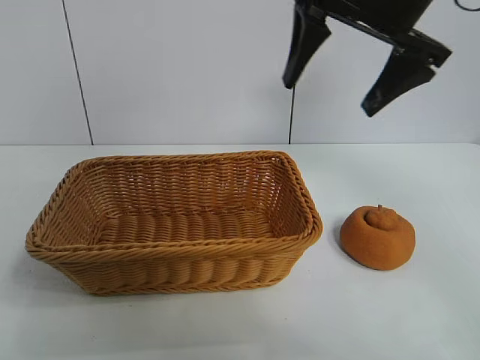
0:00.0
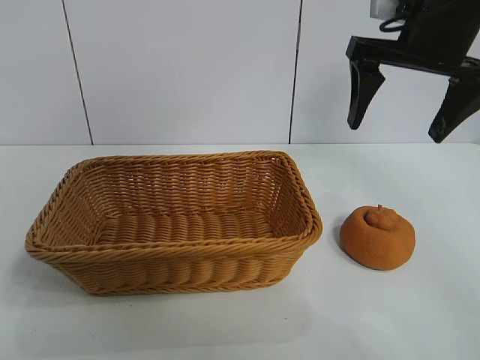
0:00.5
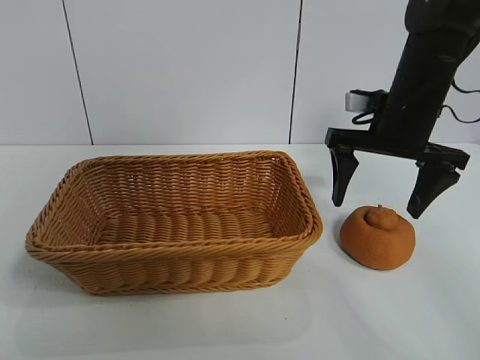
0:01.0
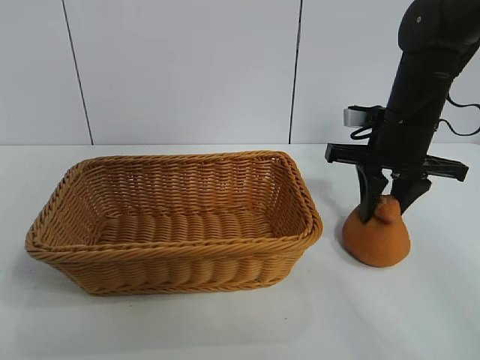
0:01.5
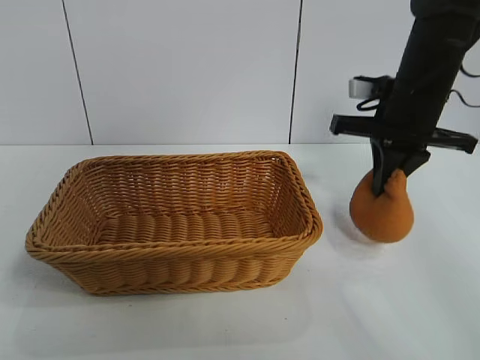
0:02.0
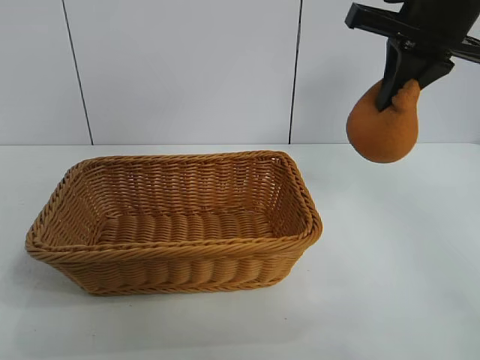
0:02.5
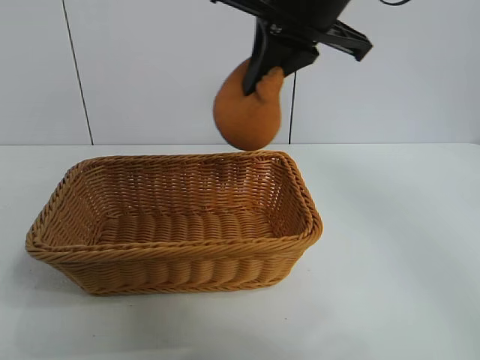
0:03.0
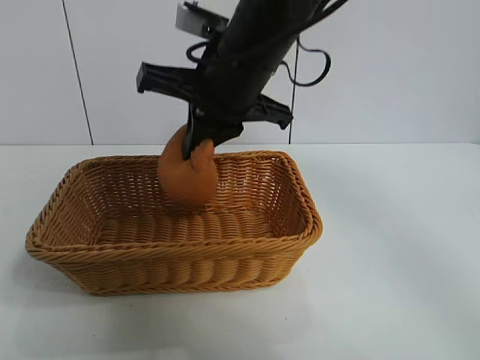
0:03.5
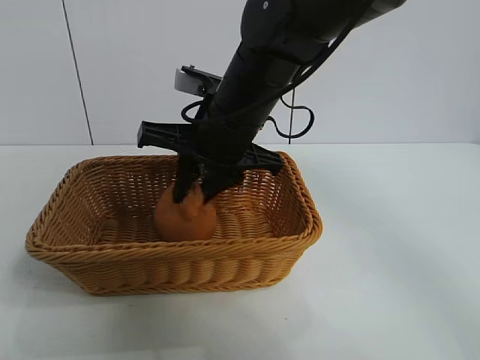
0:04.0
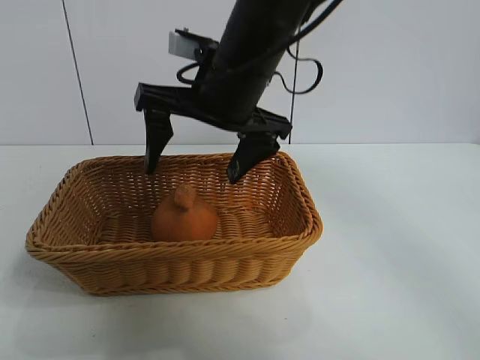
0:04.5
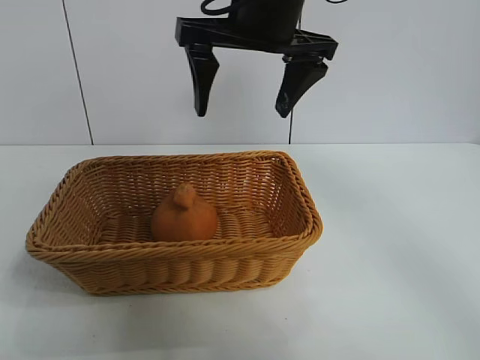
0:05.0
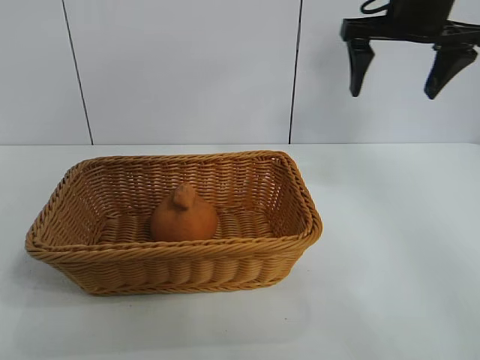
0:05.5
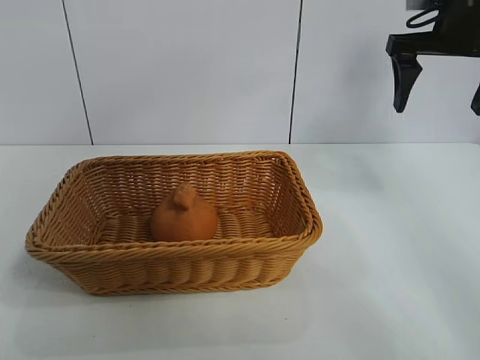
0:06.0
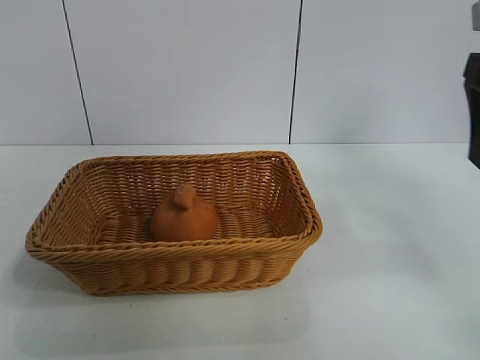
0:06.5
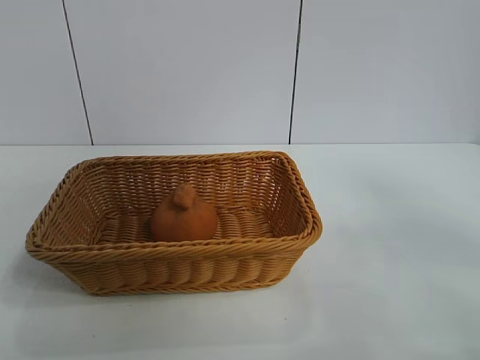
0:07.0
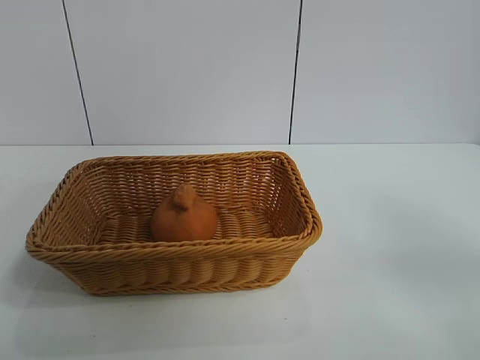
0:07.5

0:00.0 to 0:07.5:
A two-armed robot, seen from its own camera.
Task of the whole recording: pick up the orange and put it into the basket.
Step, 0:02.0 to 0:04.0: Place the orange in the basket with right gripper.

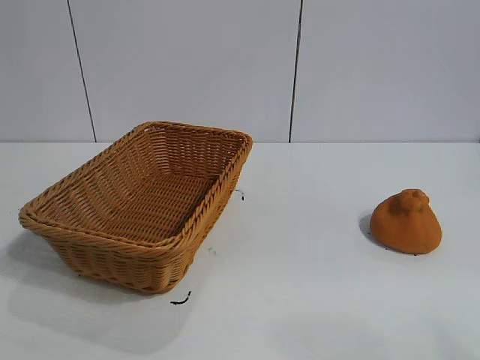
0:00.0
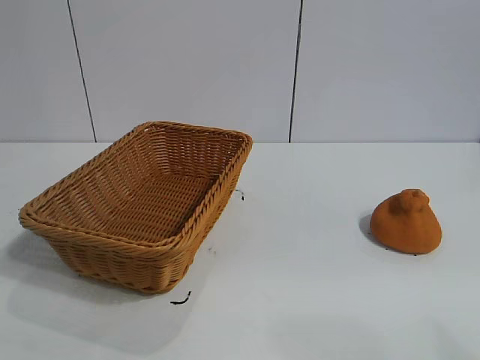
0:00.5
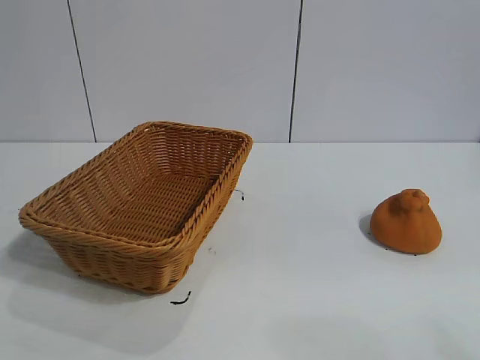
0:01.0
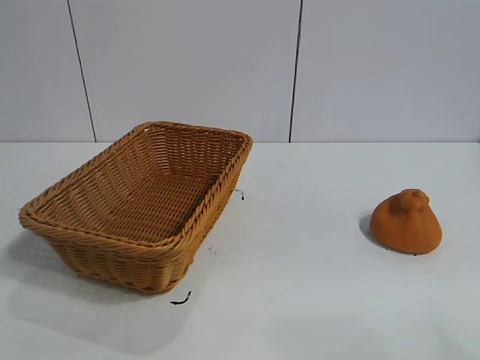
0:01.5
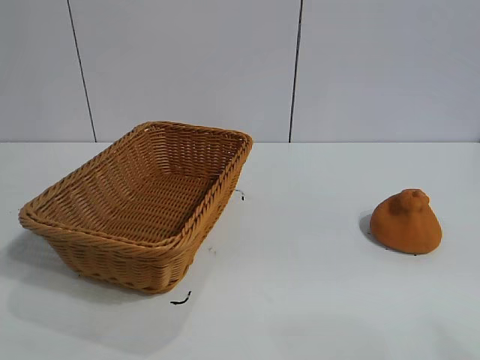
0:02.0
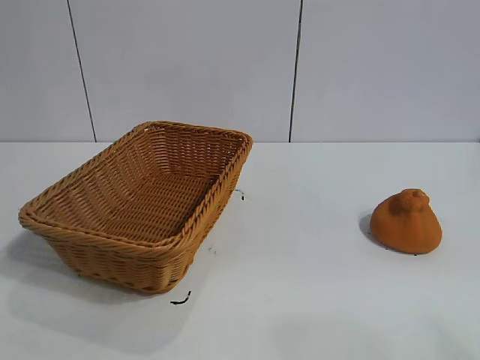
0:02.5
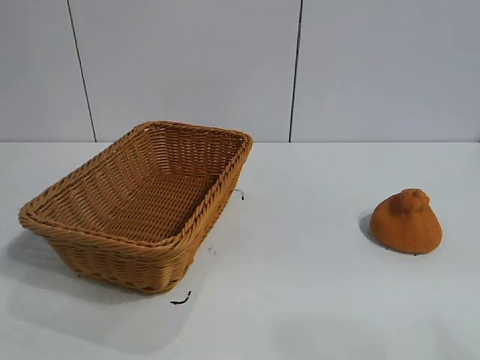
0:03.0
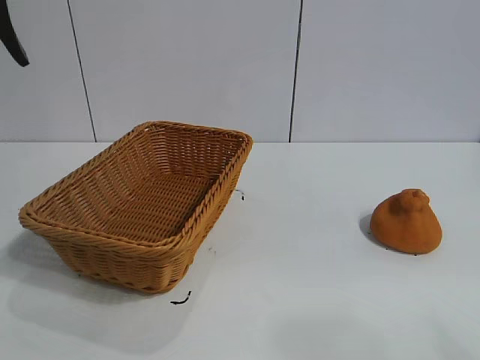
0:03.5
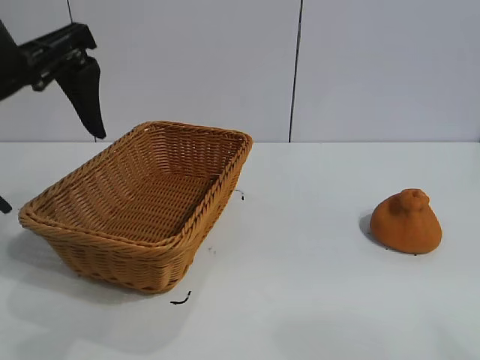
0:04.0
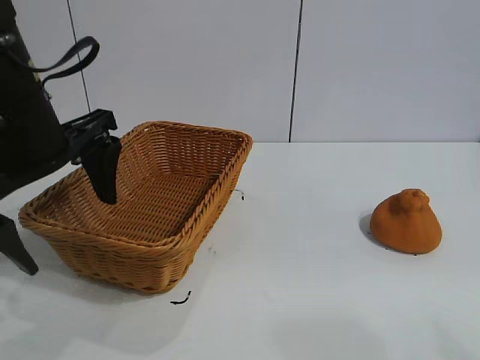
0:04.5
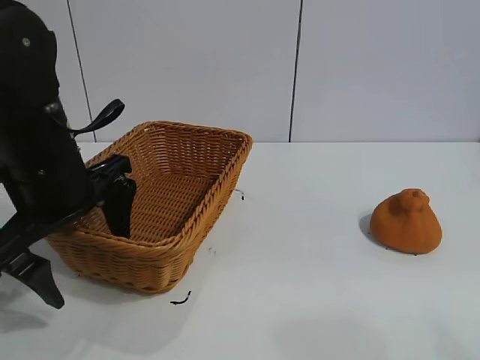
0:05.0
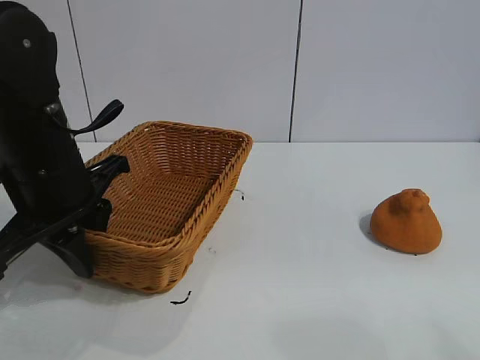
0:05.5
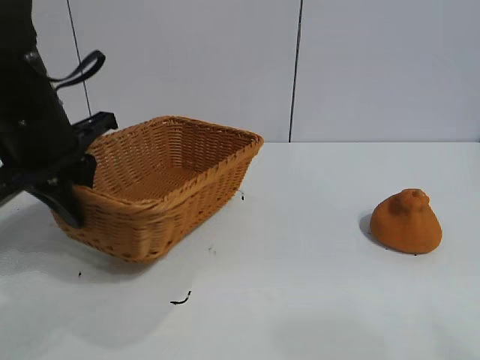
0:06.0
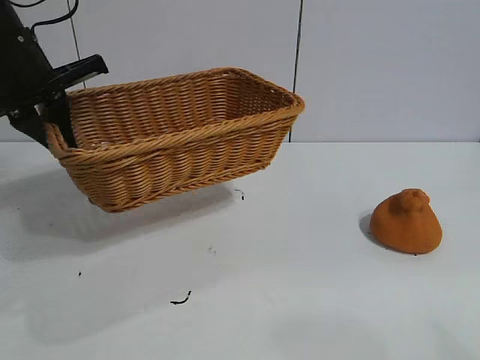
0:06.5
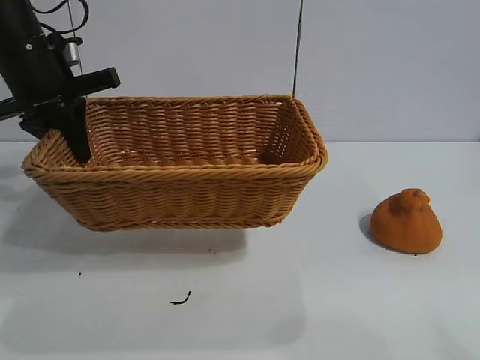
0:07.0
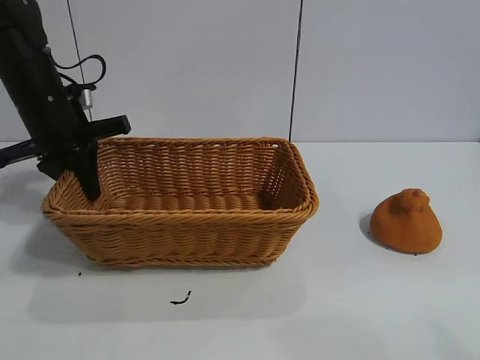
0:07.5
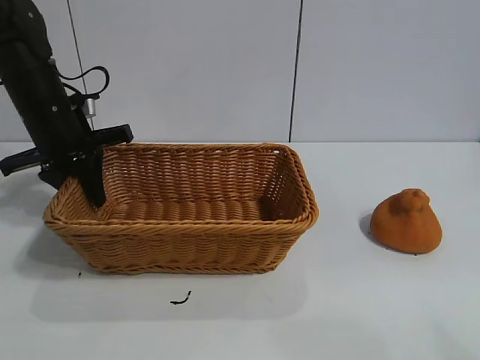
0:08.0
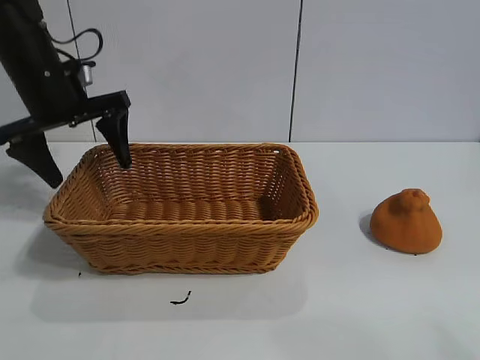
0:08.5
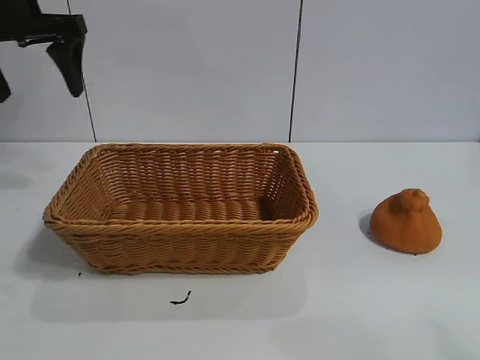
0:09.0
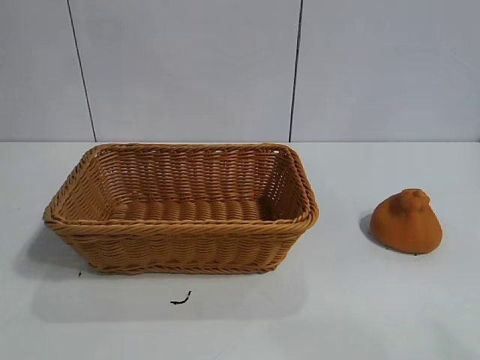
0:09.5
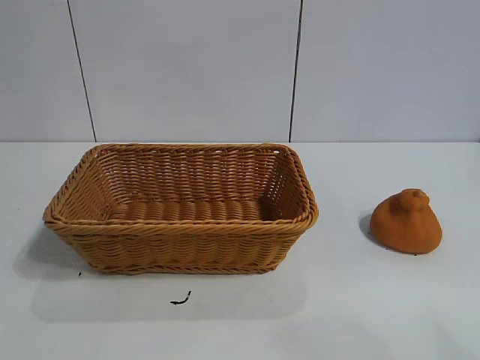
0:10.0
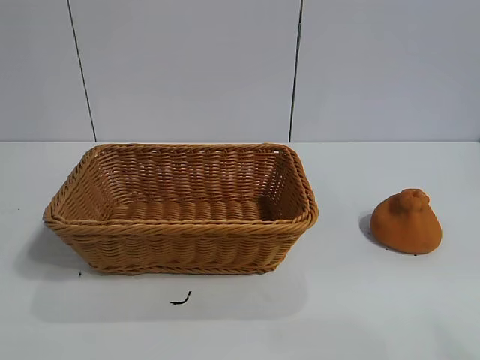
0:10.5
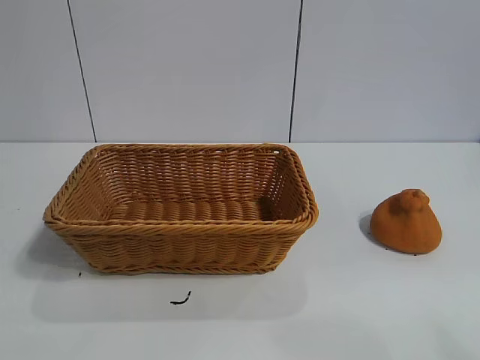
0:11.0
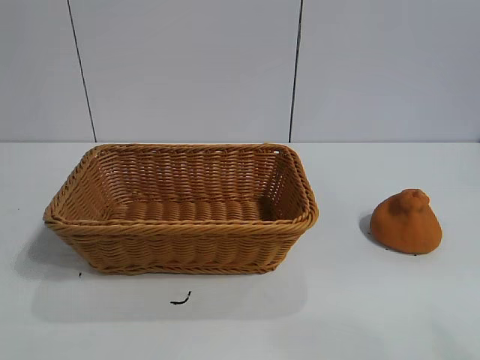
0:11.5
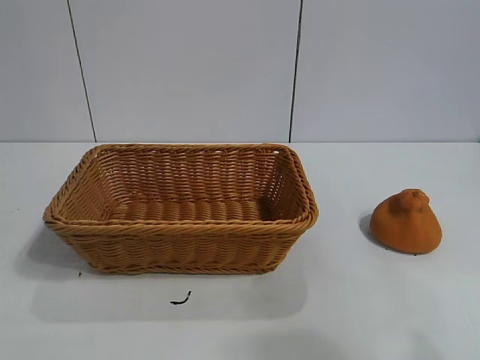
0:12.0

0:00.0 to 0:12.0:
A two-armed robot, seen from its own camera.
Task of the whole recording: pick up the orange and put it into the basket.
Step, 0:02.0 to 0:05.5: Grasp the basket with left gripper.
Step, 0:06.0 to 0:08.0: Place the basket in the center of view with left gripper.

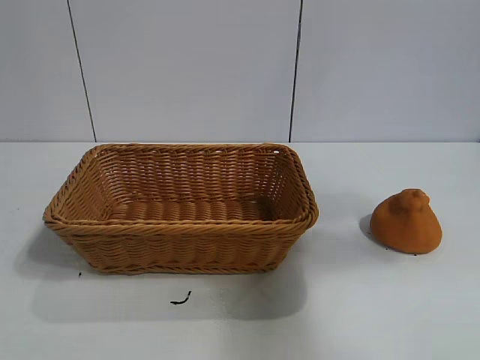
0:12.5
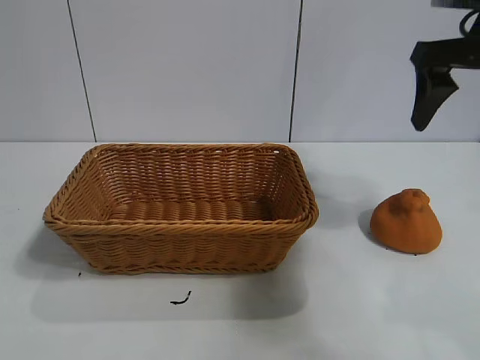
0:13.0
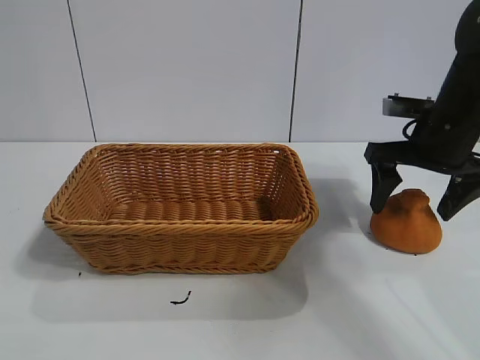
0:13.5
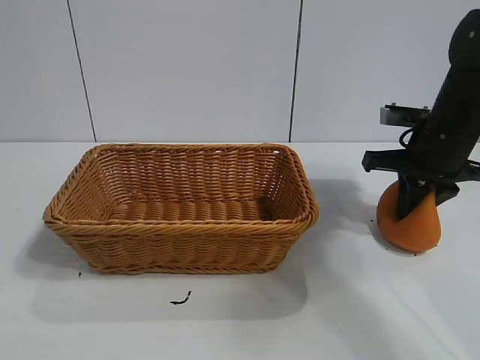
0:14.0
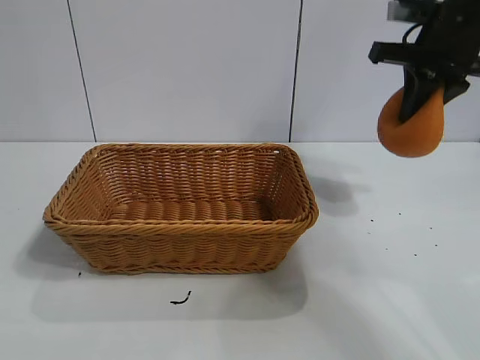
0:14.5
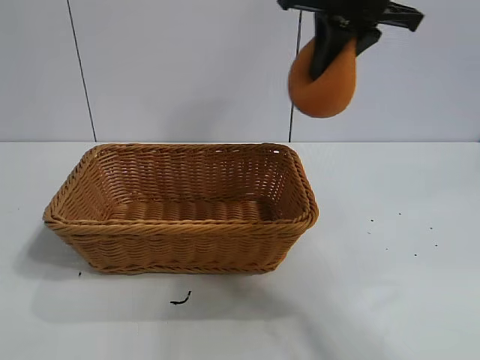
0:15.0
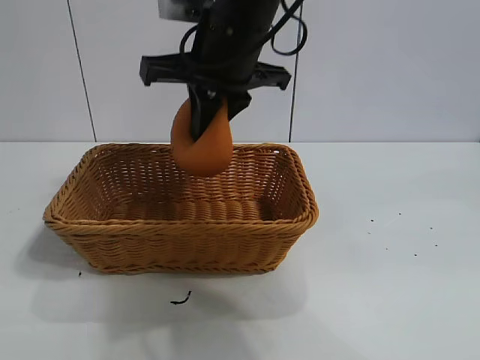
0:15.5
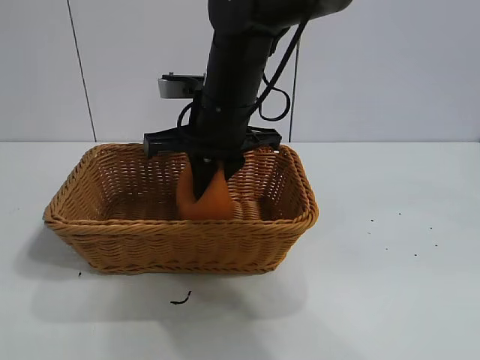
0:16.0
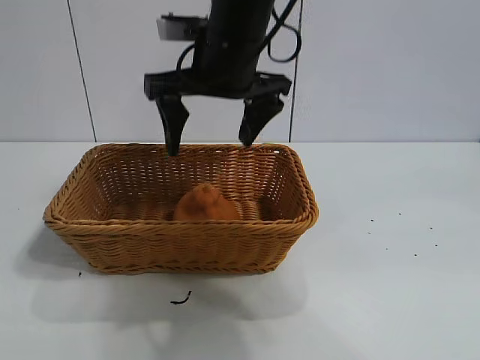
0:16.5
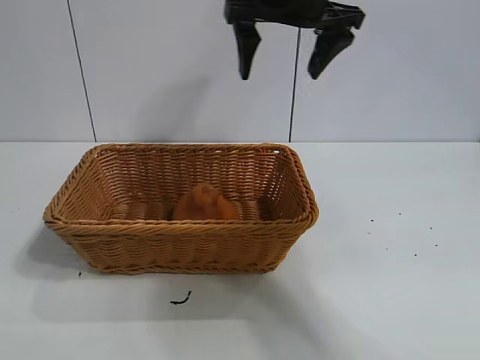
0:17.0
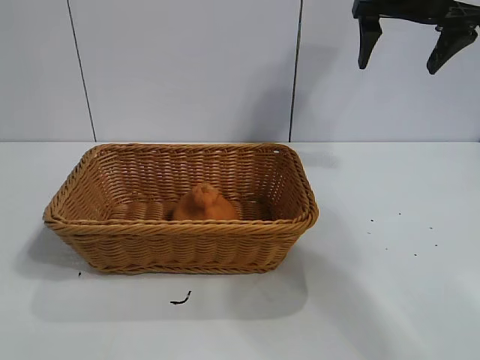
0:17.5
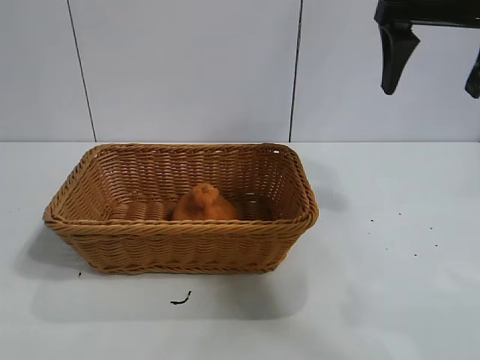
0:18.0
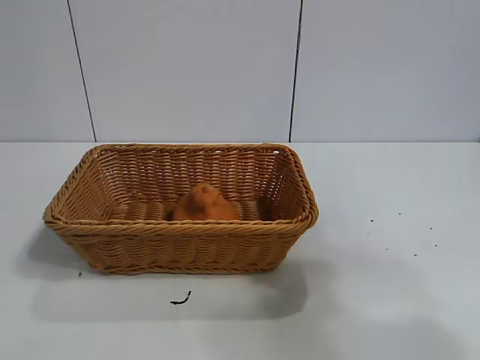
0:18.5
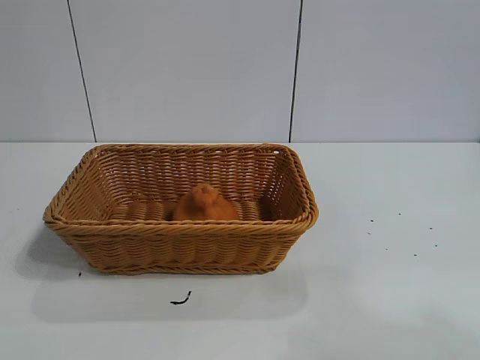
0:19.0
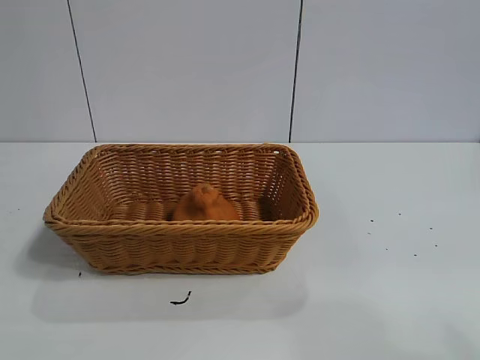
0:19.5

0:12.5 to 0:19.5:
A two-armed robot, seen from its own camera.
Task of the whole recording: pick up the orange and put it into the basket.
Step, 0:14.5 to 0:16.0: Place the orange in the basket with right gripper.
